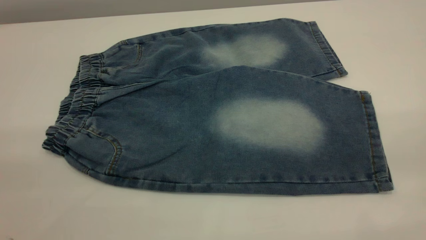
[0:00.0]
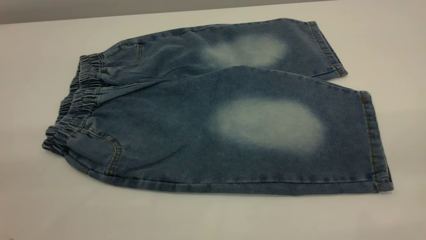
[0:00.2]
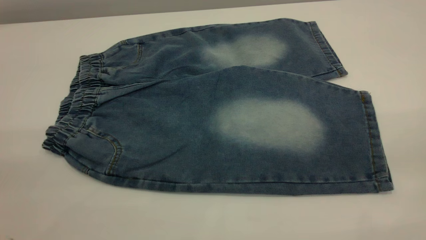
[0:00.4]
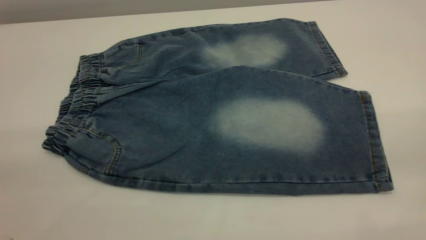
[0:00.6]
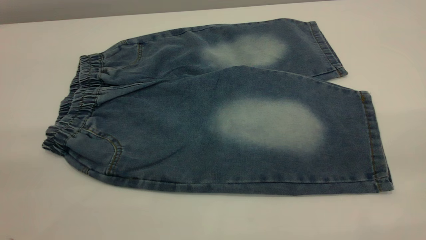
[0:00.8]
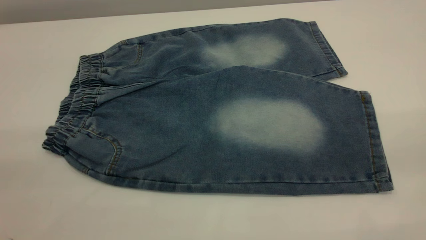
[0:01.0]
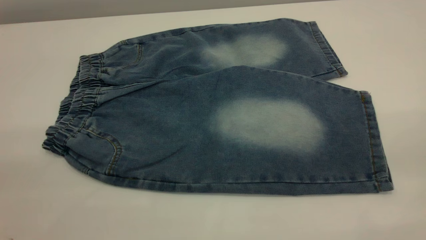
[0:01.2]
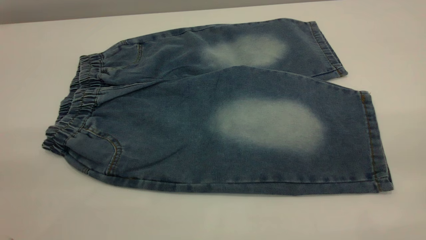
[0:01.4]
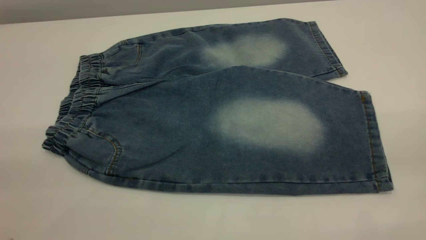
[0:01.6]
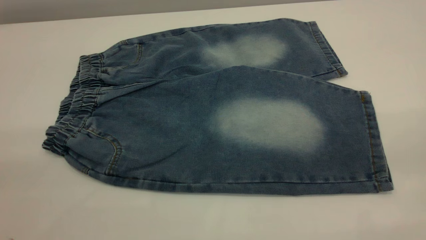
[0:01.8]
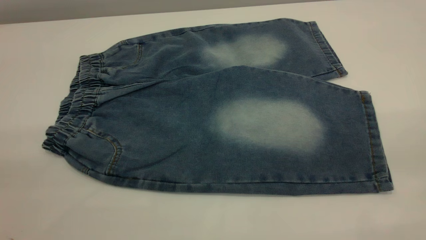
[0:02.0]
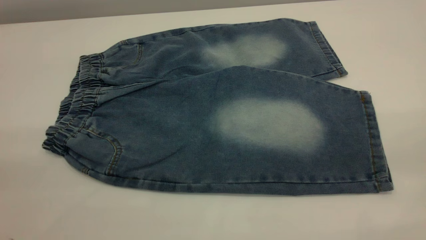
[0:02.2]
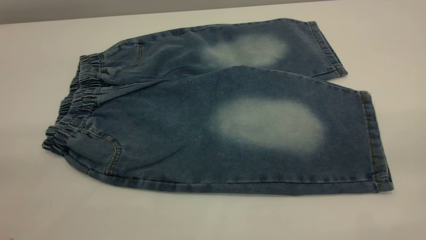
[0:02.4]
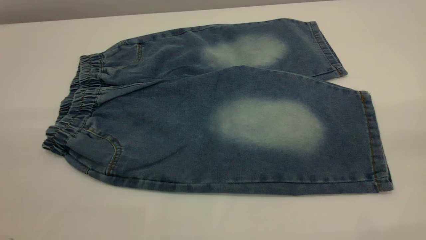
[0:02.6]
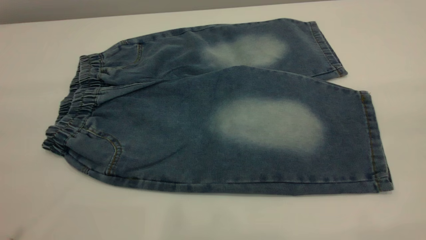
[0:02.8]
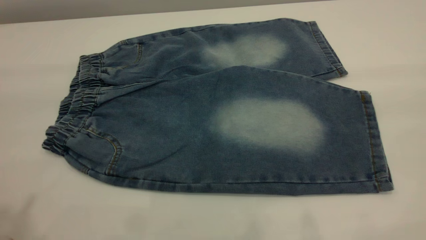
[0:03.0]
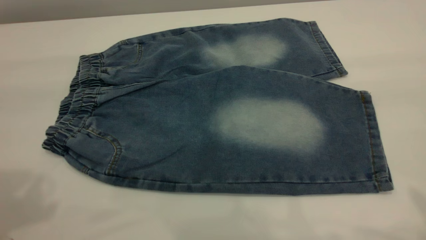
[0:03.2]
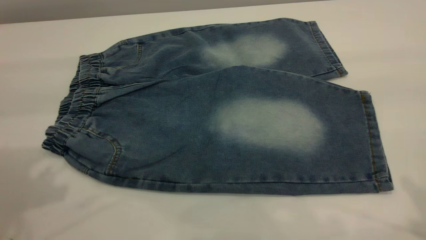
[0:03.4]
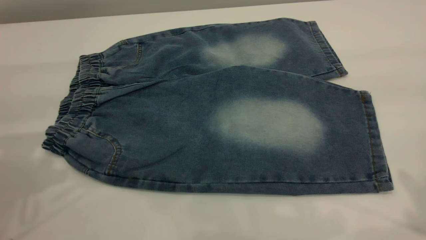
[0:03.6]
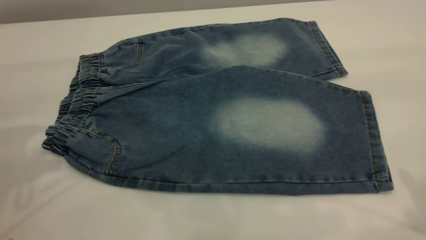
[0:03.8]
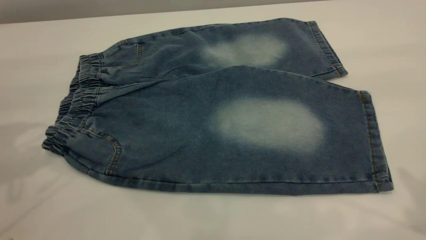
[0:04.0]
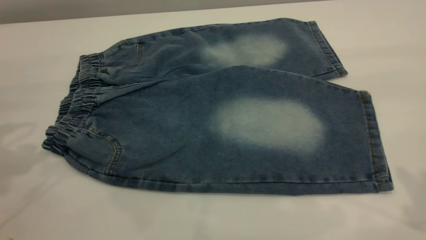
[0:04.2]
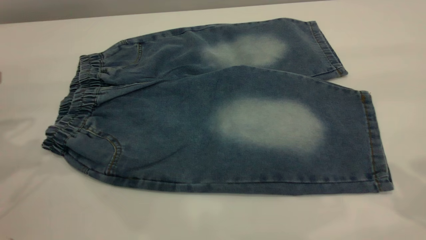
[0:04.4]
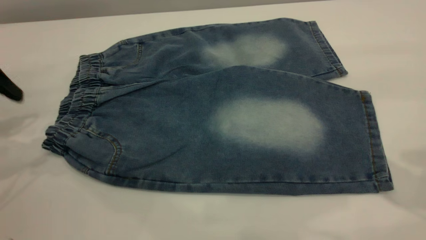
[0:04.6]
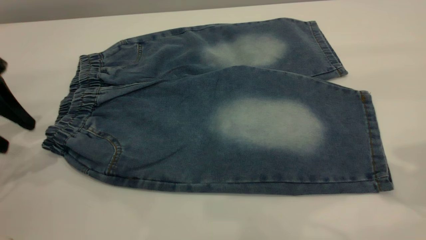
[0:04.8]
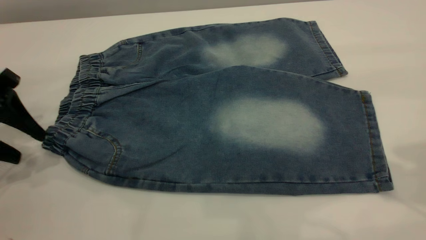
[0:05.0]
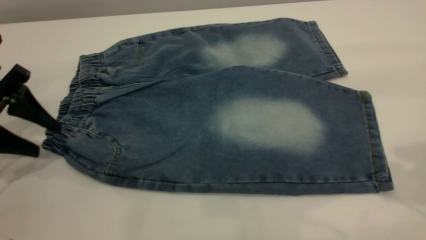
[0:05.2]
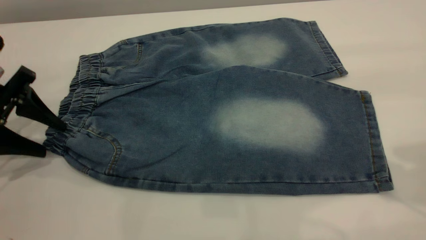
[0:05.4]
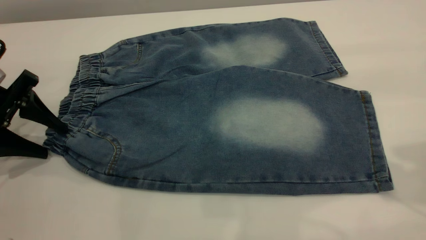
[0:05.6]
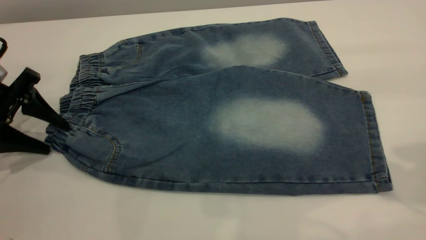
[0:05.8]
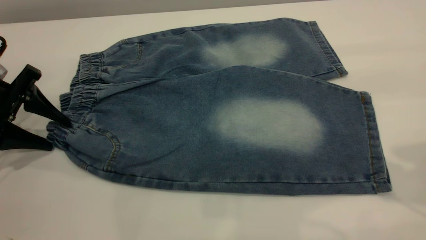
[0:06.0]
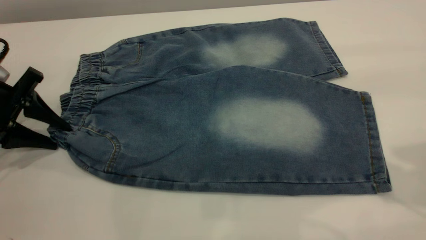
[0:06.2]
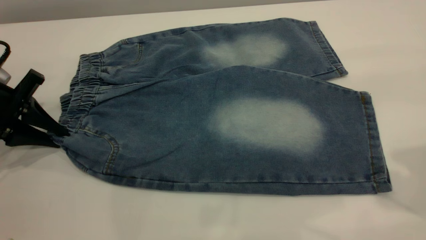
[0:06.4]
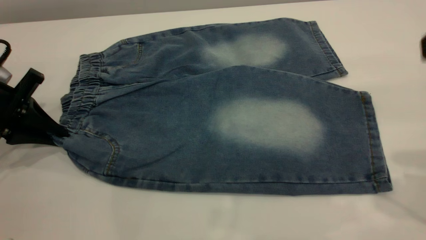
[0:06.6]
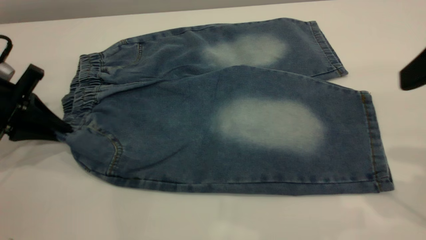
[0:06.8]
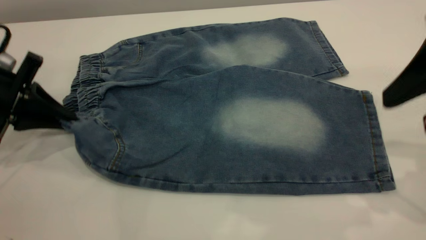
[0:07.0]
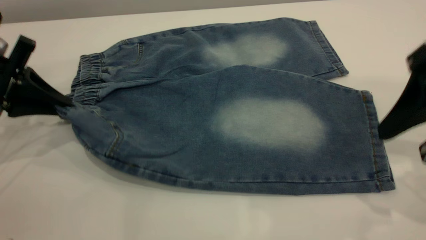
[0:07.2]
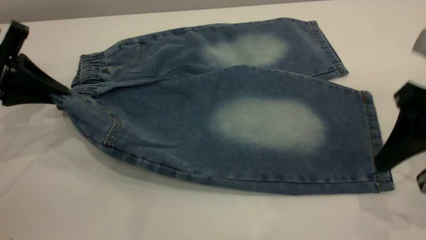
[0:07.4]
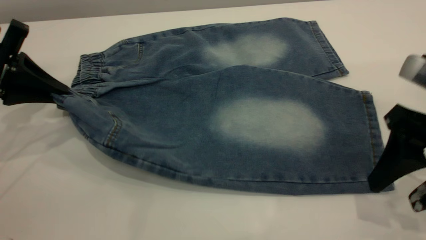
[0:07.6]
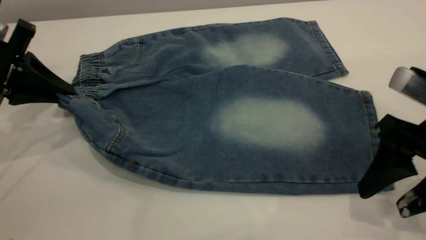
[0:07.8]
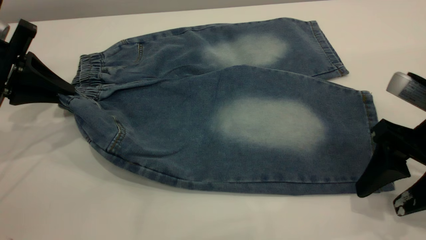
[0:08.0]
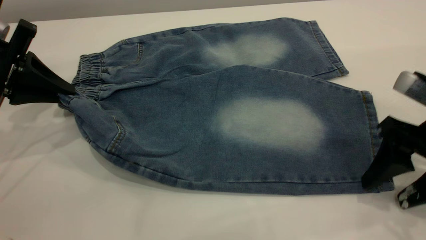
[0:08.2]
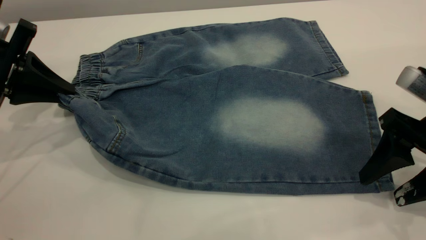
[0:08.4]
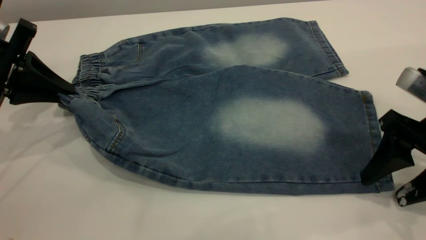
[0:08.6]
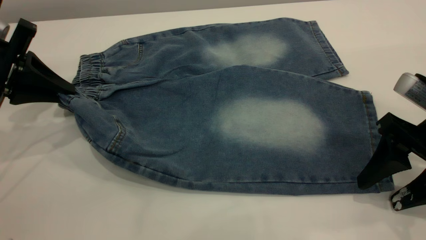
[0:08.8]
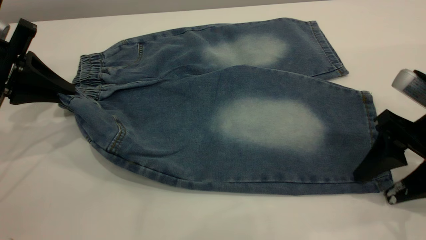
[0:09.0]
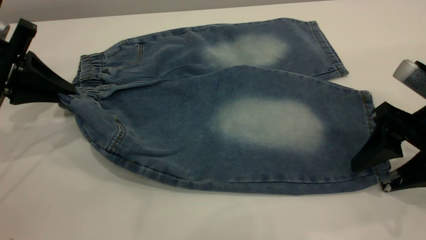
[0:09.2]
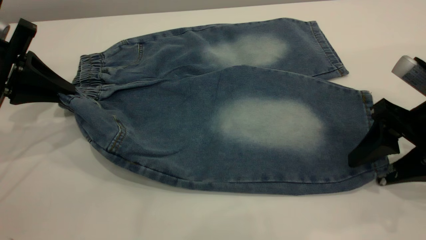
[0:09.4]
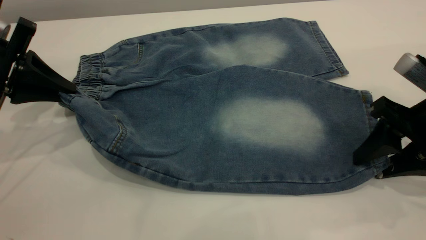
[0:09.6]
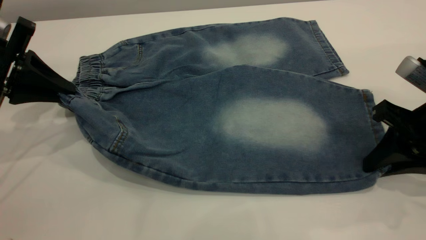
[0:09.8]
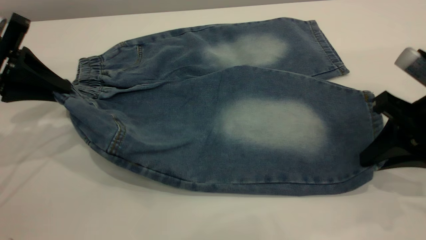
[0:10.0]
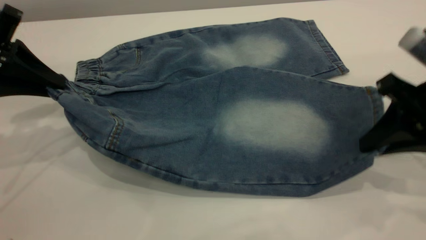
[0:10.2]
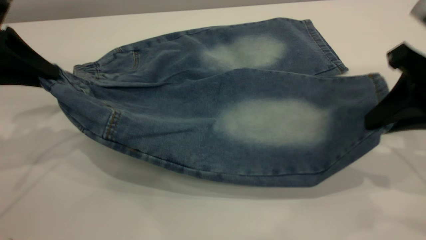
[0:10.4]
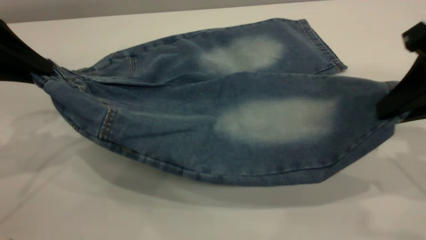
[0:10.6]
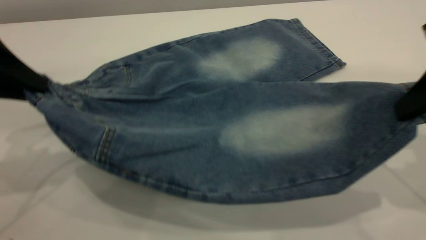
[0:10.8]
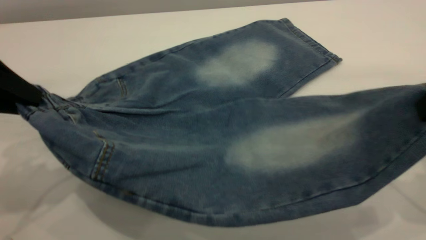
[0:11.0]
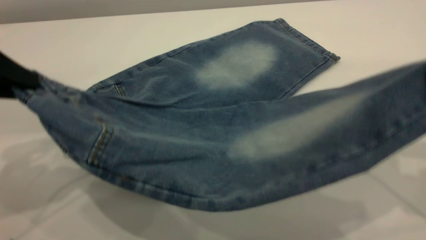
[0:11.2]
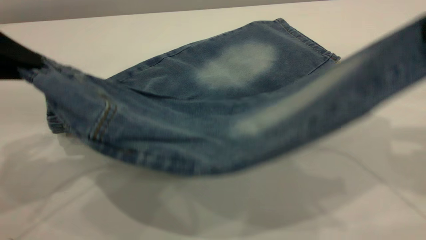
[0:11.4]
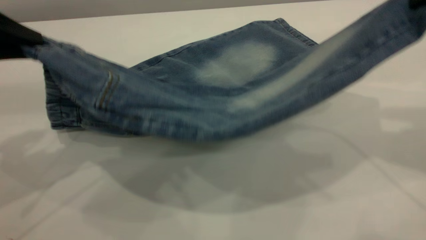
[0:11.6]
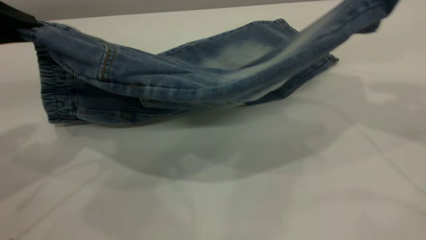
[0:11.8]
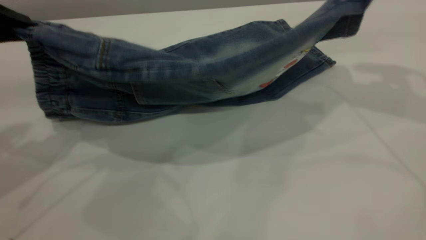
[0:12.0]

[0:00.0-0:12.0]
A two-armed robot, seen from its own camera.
0:00.0 to 0:01.6: Neither gripper changes place.
0:04.4 to 0:06.0: The left gripper moves downward, roughly 10 cm.
0:06.0 to 0:07.6: The left gripper shifts by roughly 5 cm, and closes; the right gripper goes roughly 15 cm downward.
0:07.6 to 0:09.0: The grippers move only a little.
0:09.0 to 0:10.4: Both grippers travel together upward, some 5 cm. The right gripper closes its fingers.
0:10.4 to 0:12.0: The left gripper shifts by some 5 cm; the right gripper goes approximately 15 cm forward and upward.

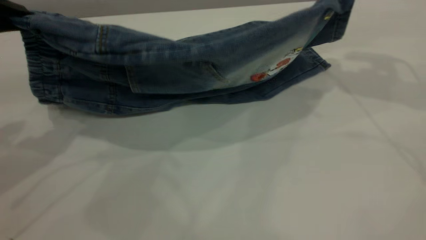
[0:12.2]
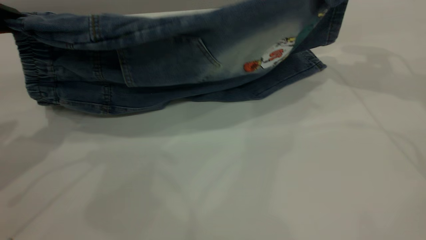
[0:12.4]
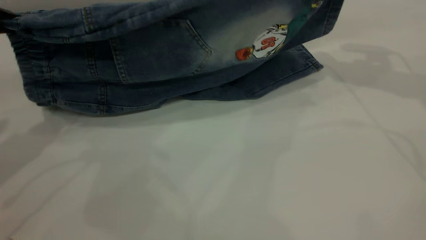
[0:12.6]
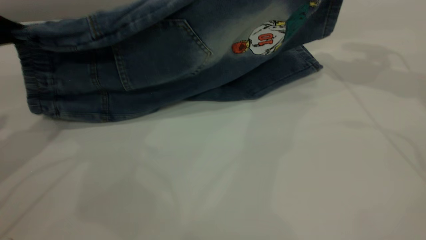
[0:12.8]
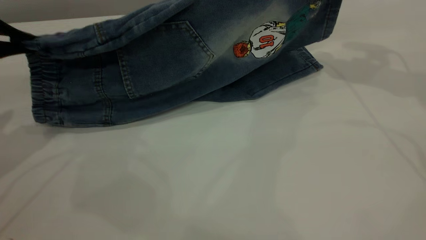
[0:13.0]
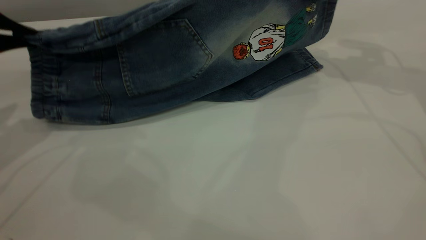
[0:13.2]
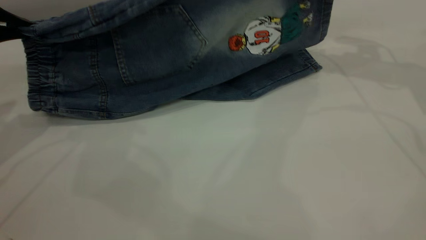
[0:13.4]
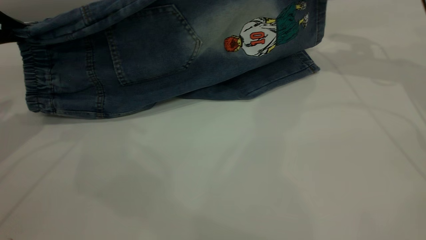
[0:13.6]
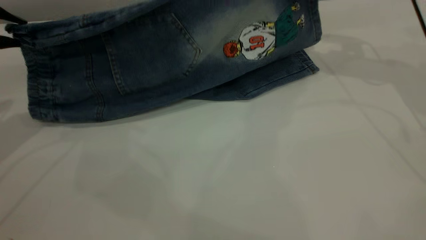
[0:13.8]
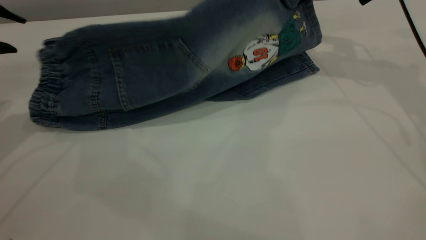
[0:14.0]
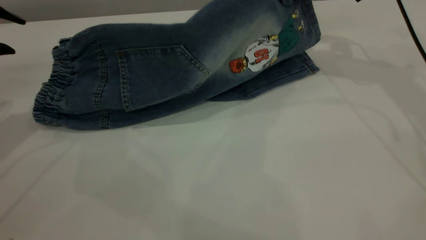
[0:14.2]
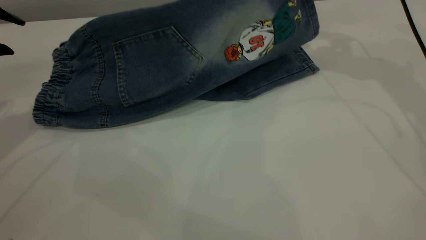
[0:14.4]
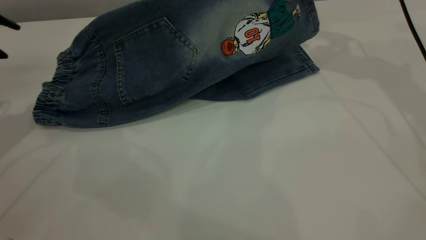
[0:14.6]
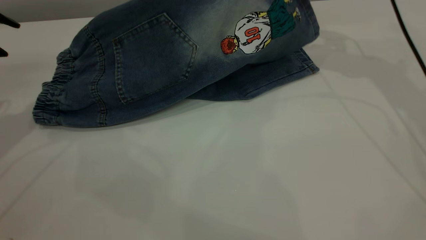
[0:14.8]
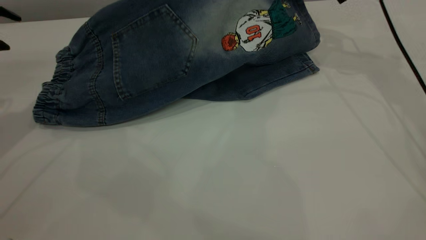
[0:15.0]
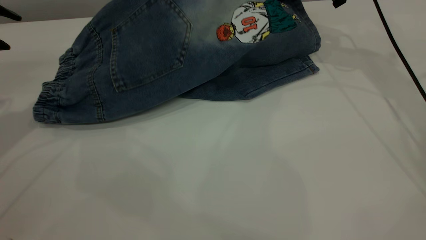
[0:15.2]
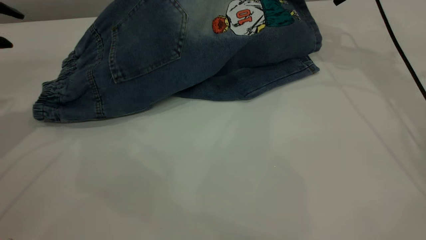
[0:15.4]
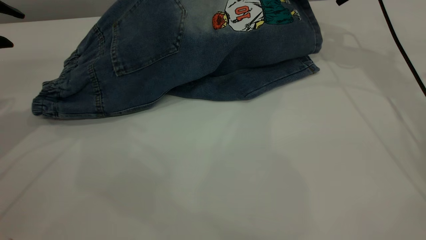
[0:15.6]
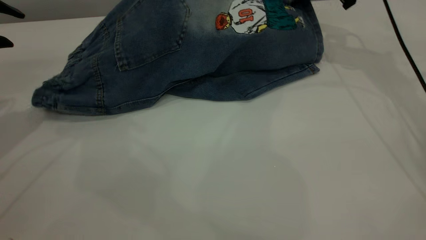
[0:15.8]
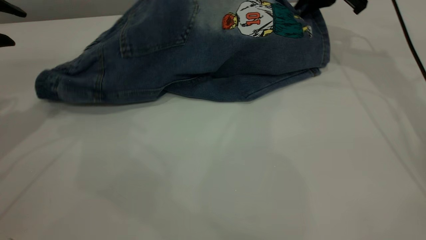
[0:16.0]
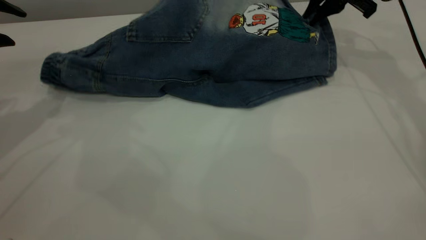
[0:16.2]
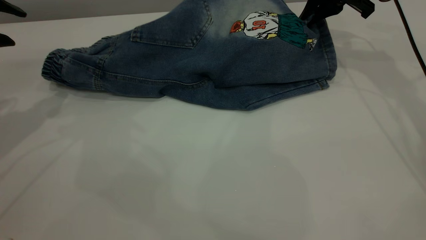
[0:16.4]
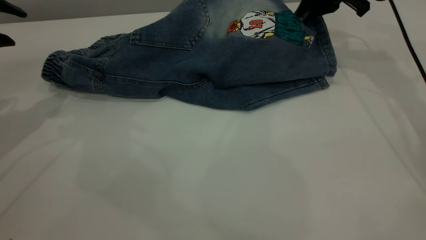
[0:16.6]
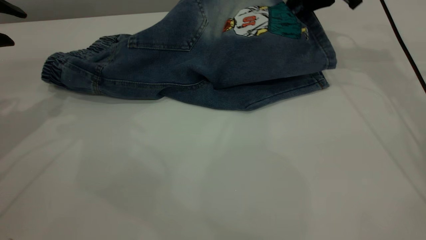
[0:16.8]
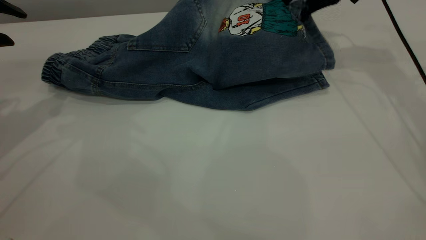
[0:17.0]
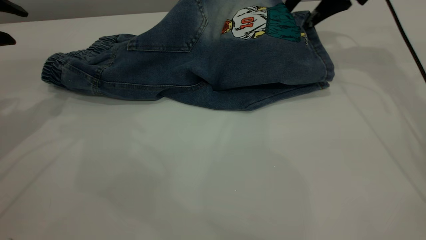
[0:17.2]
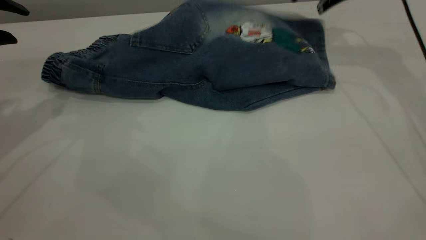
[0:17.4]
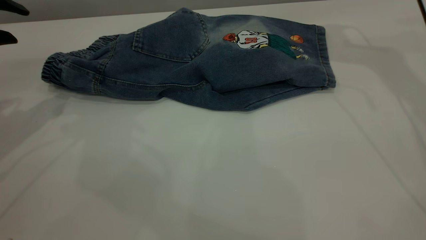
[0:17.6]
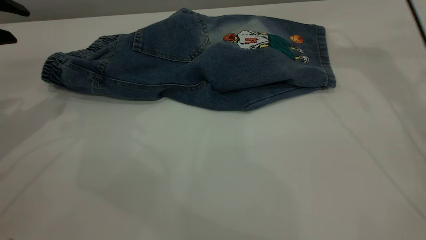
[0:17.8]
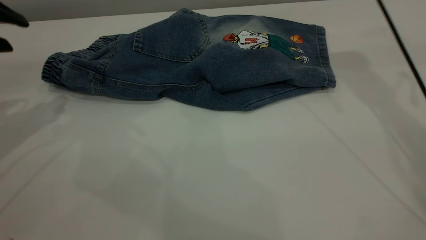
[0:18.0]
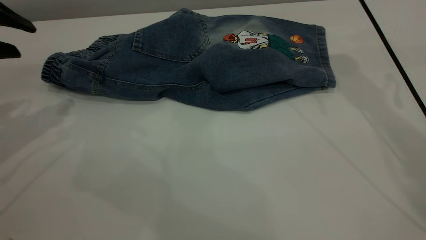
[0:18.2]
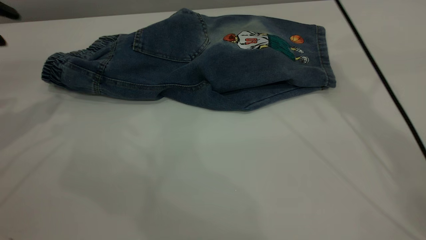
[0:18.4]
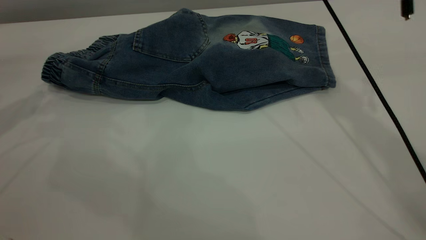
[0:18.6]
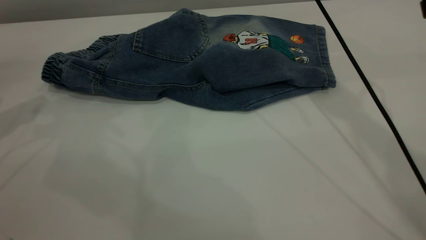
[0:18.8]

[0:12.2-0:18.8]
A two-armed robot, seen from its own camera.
Step, 0:12.2 to 0:17.8: Fold the bottom of the pants upward.
0:12.2 to 0:13.8: The two grippers go approximately 5 cm forward. The left gripper opens.
0:13.8 to 0:15.4: The right gripper changes place by some 5 cm.
0:15.4 to 0:17.2: The right gripper opens its fingers.
0:17.2 to 0:18.8: The right gripper shifts roughly 15 cm to the left and upward.
